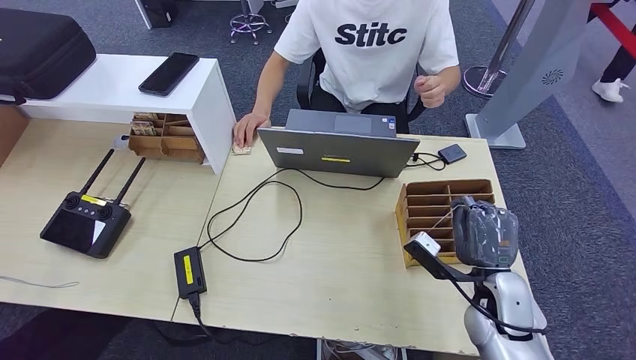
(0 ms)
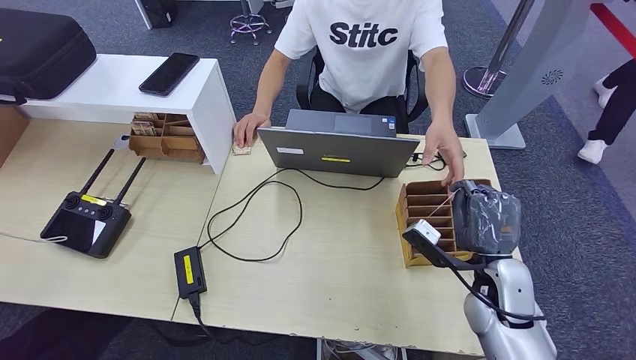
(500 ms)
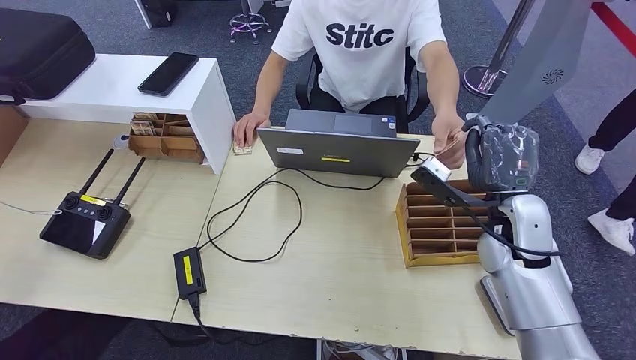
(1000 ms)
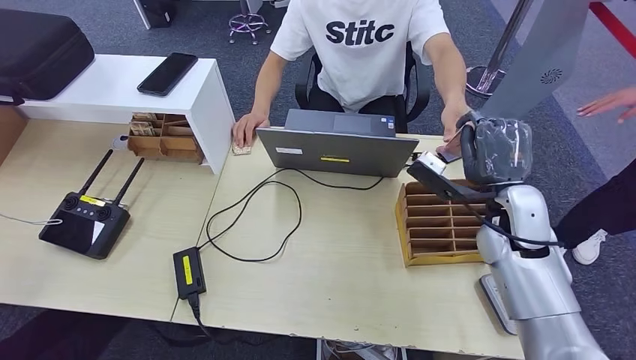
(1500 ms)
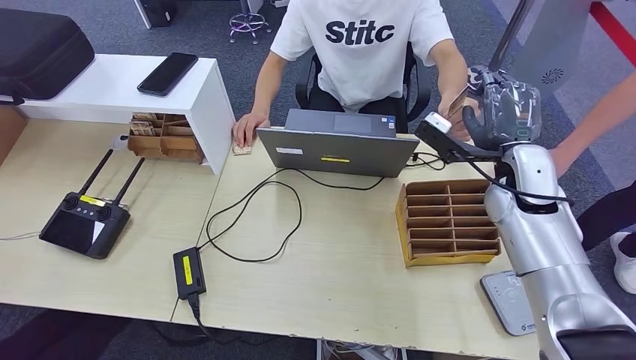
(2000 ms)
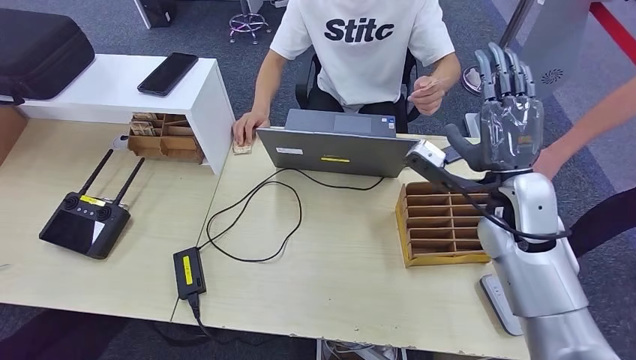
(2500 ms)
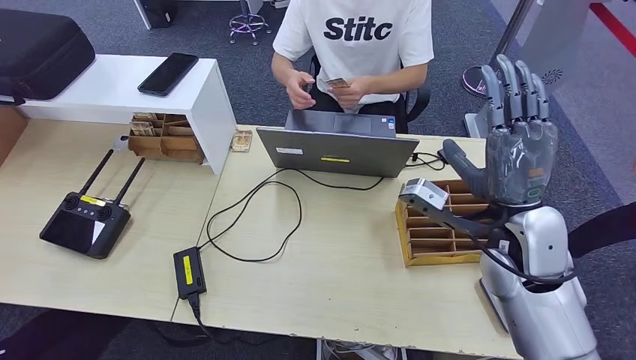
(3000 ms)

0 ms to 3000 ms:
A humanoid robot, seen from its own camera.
Step, 500 ms to 3000 ms: Hand the room key to the person.
0 ms to 1500 ms: The right hand goes approximately 15 cm upward and forward.
1500 ms to 3000 ms: The right hand is displaced backward by about 5 cm.
